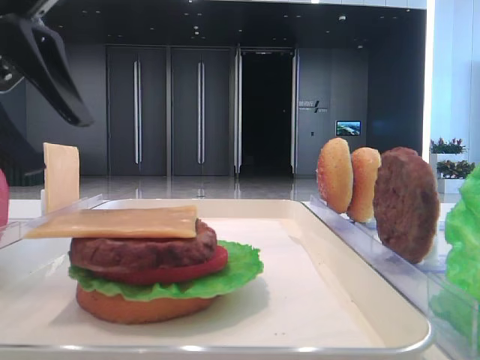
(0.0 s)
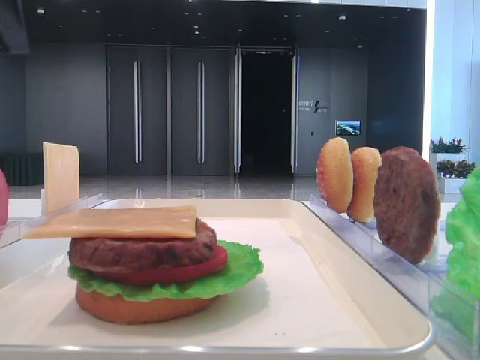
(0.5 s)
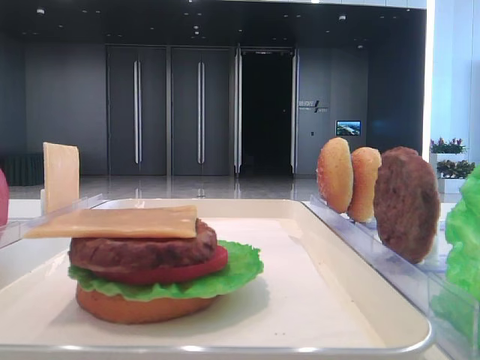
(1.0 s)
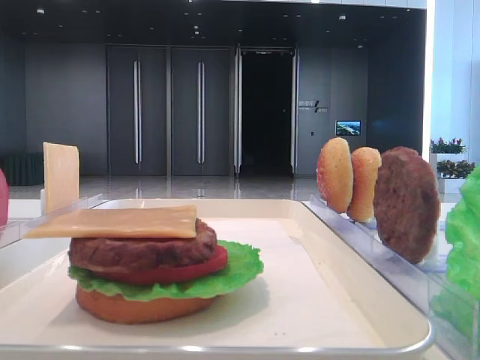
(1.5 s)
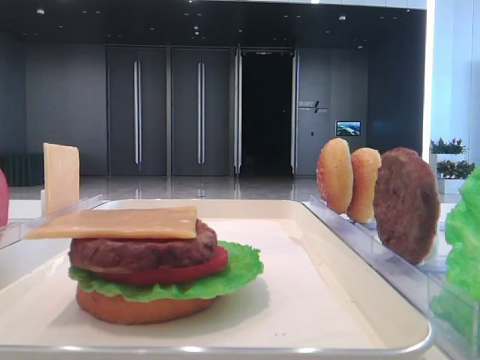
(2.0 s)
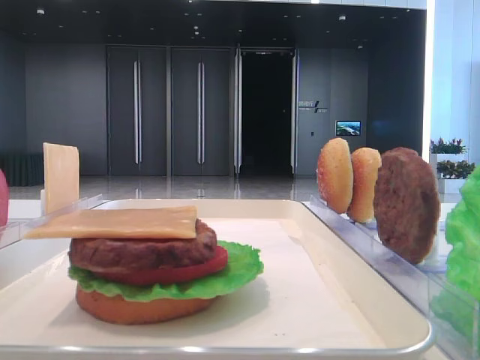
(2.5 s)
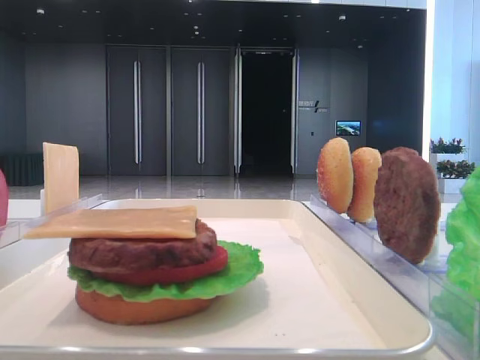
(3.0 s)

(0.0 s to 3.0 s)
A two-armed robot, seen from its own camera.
0.0 s - 1.5 s: The left gripper travels to the left and upward by about 15 cm.

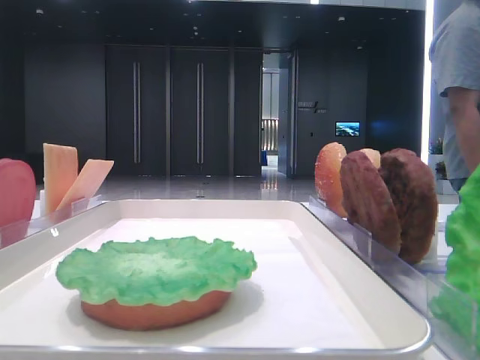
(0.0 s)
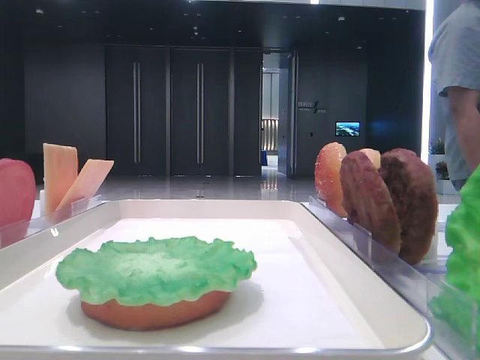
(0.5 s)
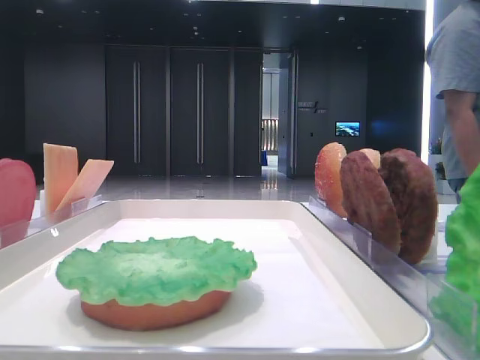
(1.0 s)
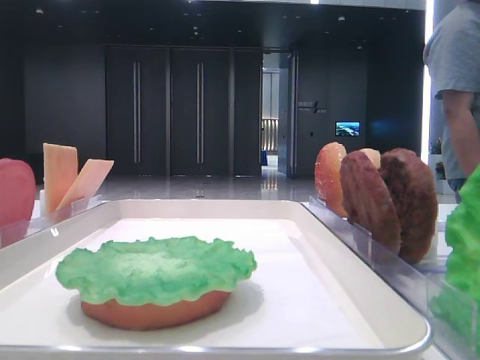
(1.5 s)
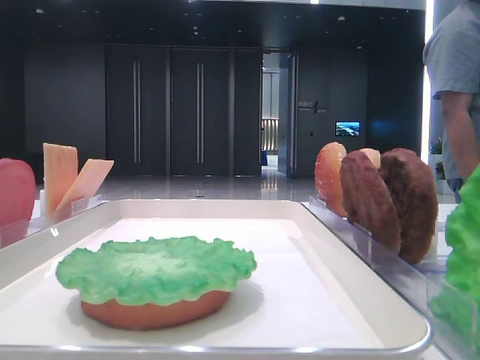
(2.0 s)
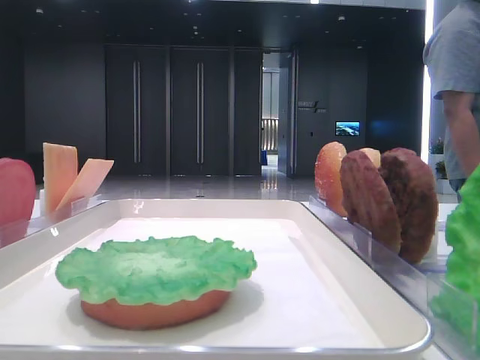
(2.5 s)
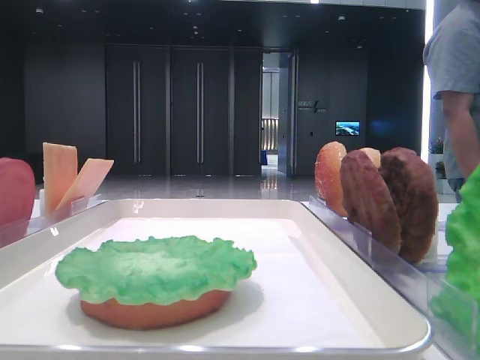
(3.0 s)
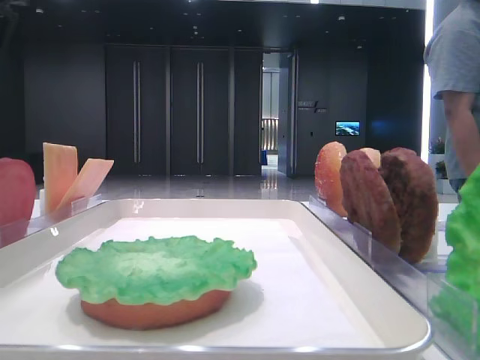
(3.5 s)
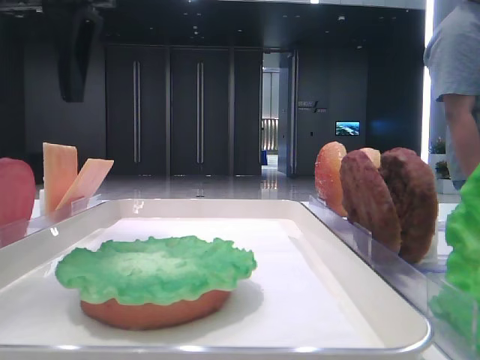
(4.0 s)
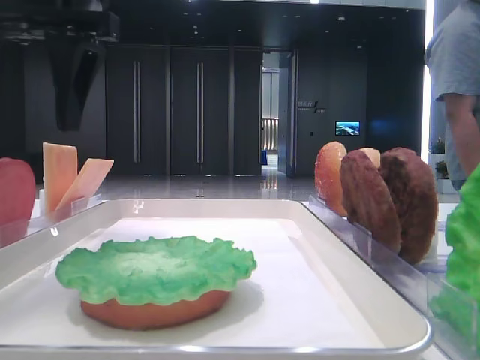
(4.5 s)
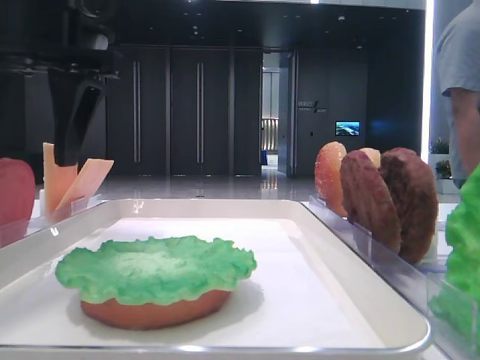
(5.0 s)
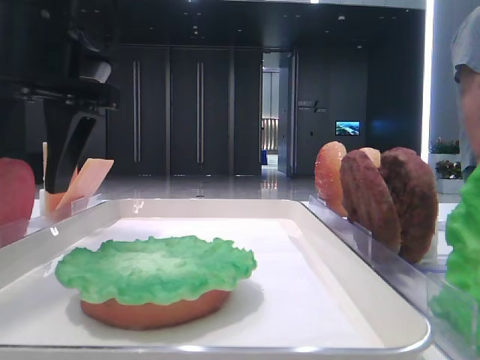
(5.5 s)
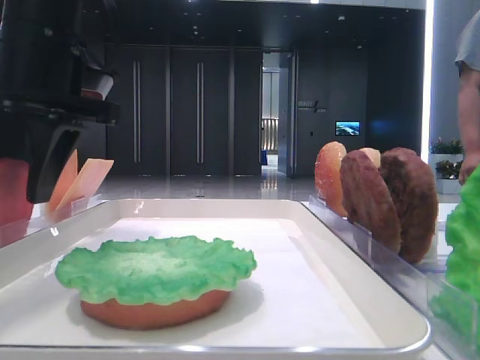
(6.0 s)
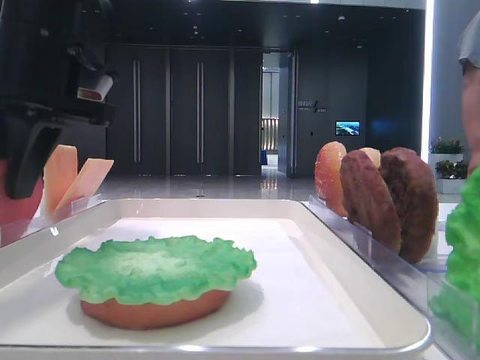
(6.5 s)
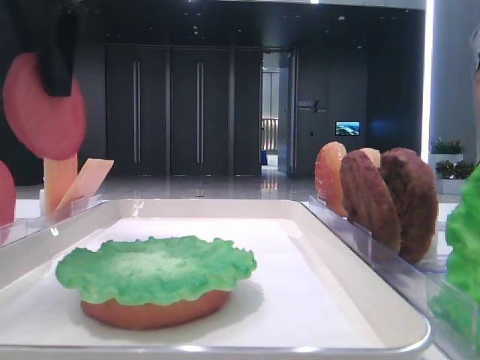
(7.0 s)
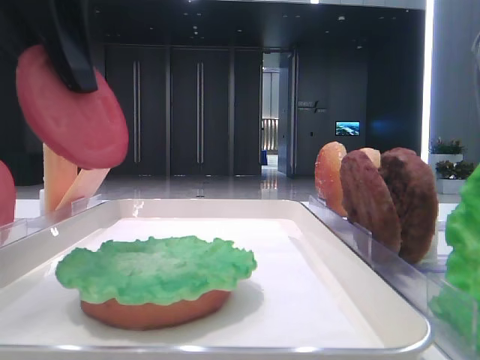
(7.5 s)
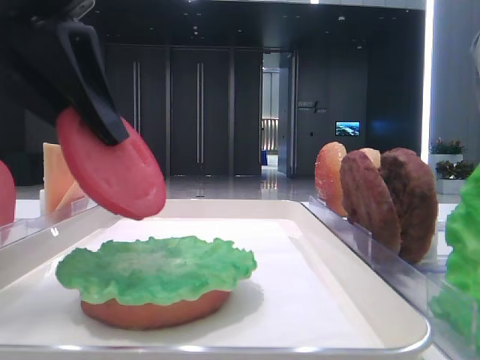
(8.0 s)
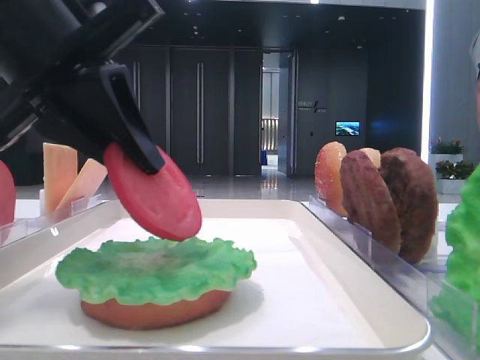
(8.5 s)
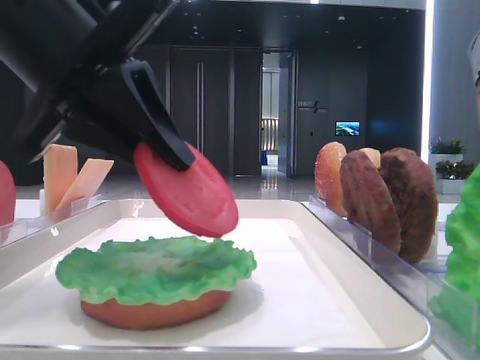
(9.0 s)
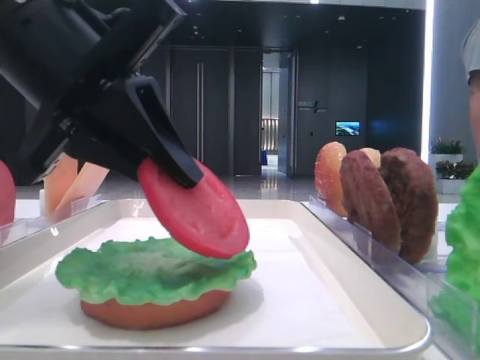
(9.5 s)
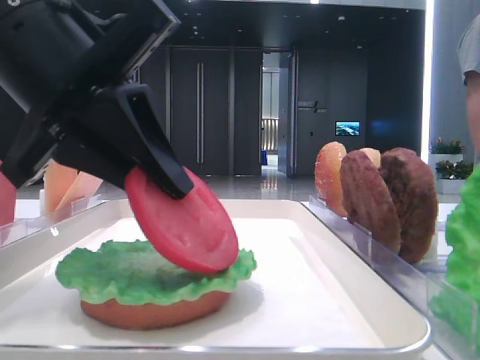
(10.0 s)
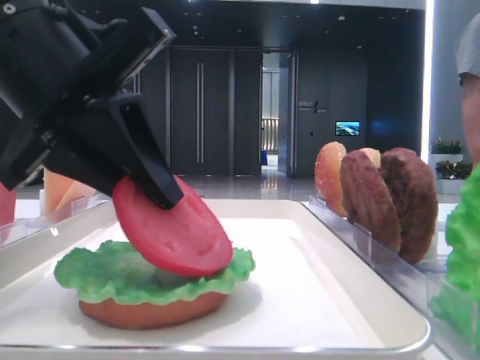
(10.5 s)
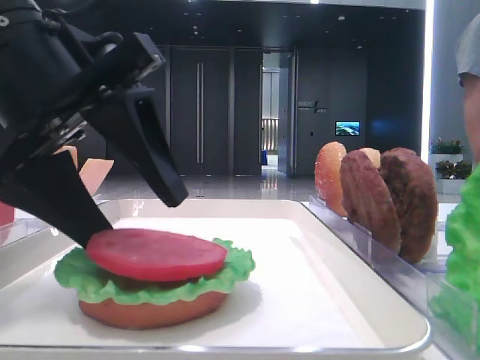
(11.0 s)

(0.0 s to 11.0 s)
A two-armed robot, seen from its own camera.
Step, 0.0 s - 6.0 s: Pick up the tomato slice with the left hand.
Step, 6.5 s - 11.0 s: Place the tomato slice on the lettuce leaf with the left hand.
3.5 s - 5.5 s: The left gripper goes some 10 cm to the right and downward.
5.5 s - 7.5 s: The left gripper moves backward and upward, approximately 10 cm, and closes.
7.5 s - 9.0 s: The left gripper shifts approximately 10 cm downward.
9.0 s - 11.0 s: The left gripper opens.

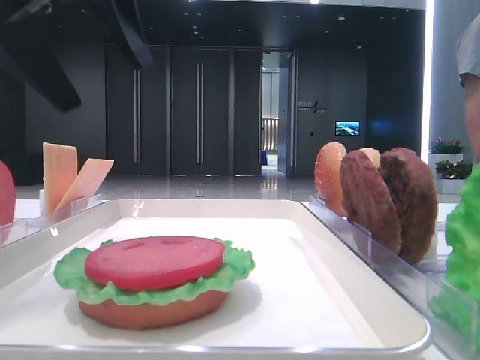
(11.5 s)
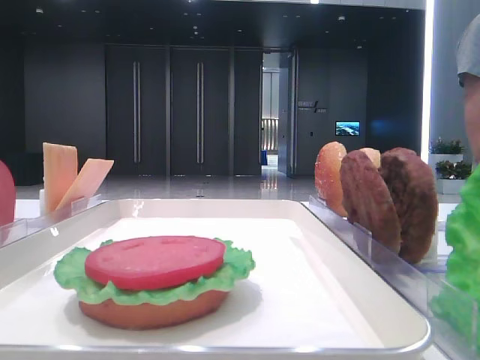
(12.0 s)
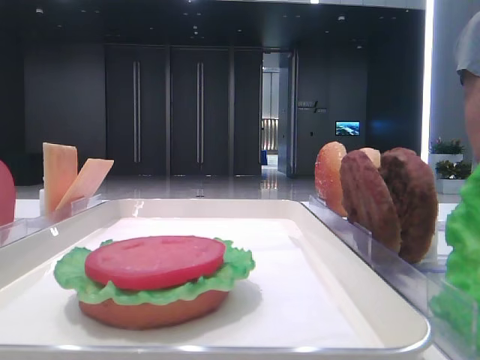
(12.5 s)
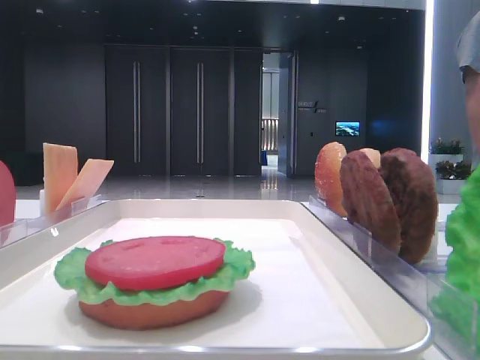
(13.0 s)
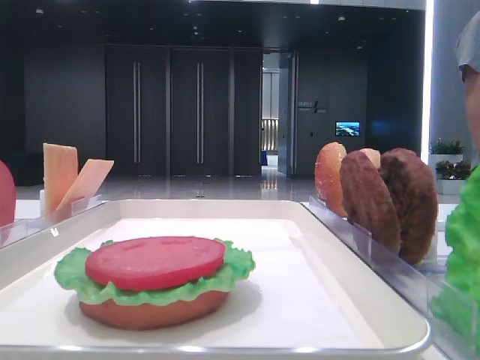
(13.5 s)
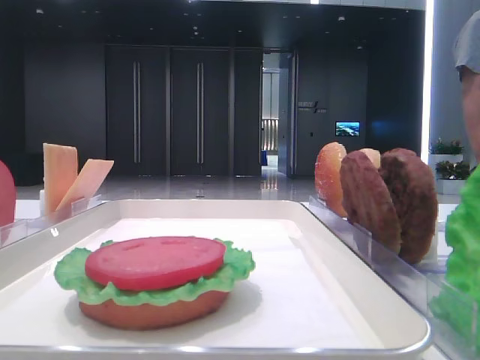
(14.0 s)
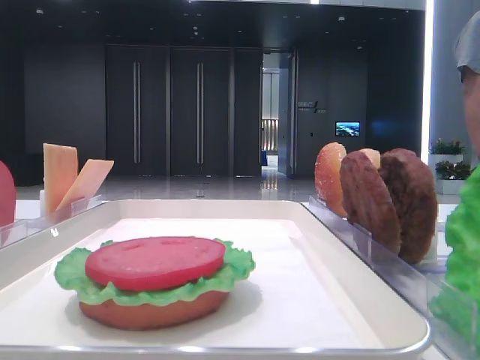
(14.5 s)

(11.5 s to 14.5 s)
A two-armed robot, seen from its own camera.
11.5 s - 13.0 s: The left gripper is displaced to the left and backward by approximately 20 cm.

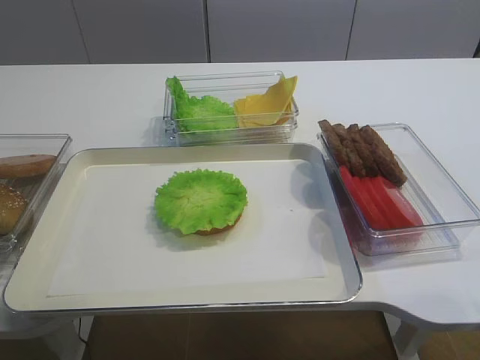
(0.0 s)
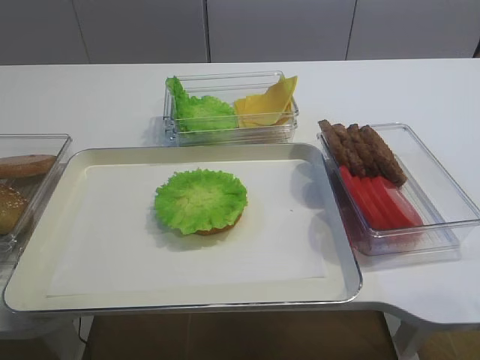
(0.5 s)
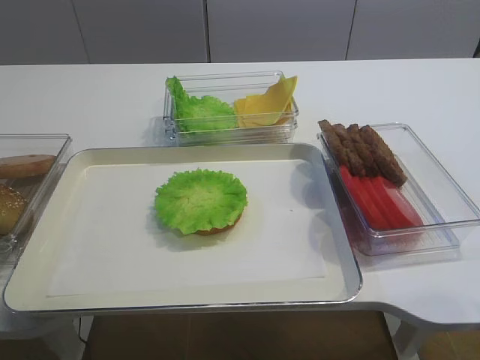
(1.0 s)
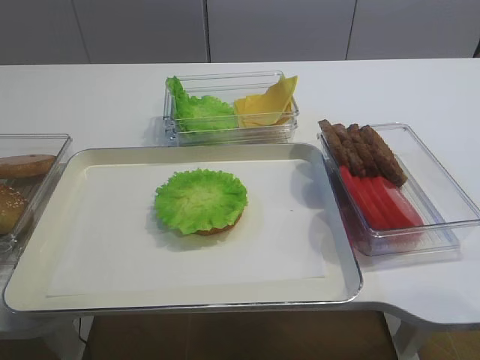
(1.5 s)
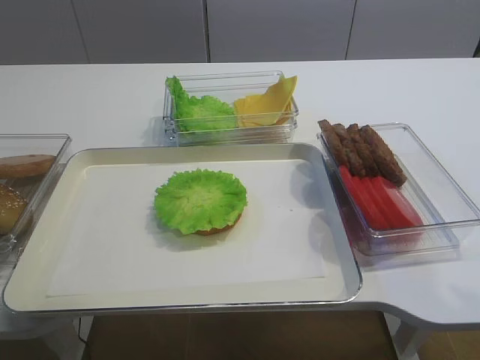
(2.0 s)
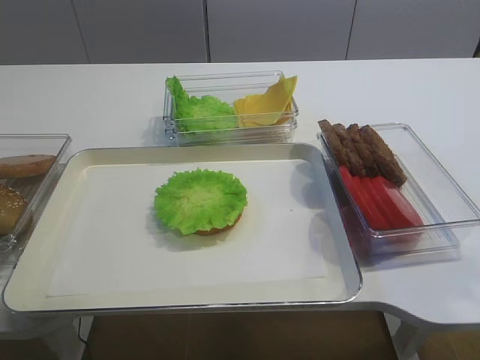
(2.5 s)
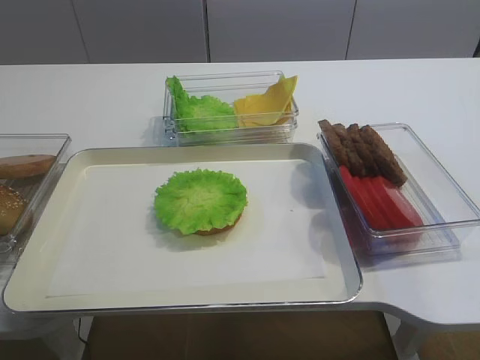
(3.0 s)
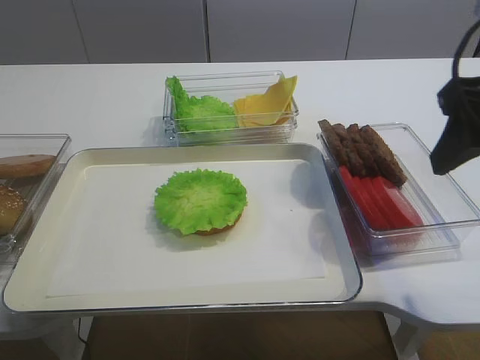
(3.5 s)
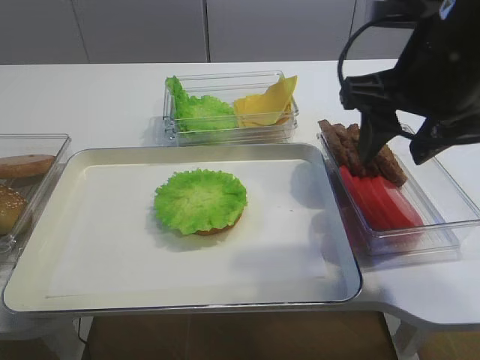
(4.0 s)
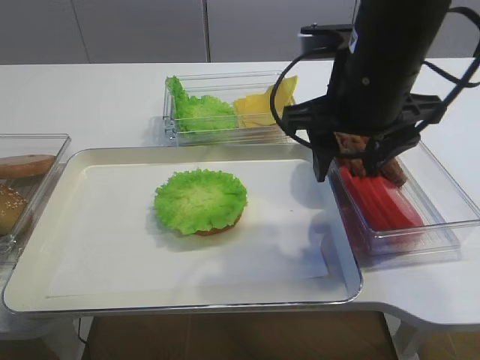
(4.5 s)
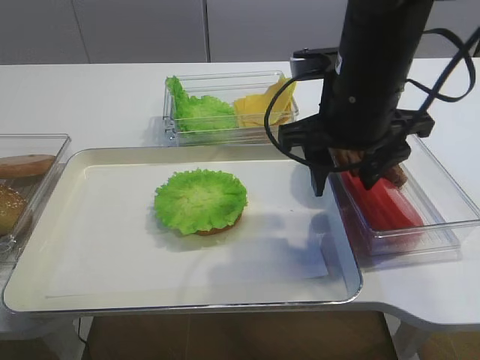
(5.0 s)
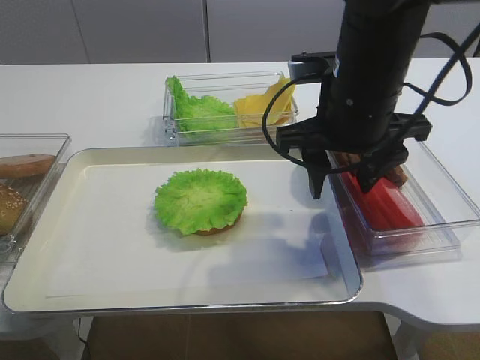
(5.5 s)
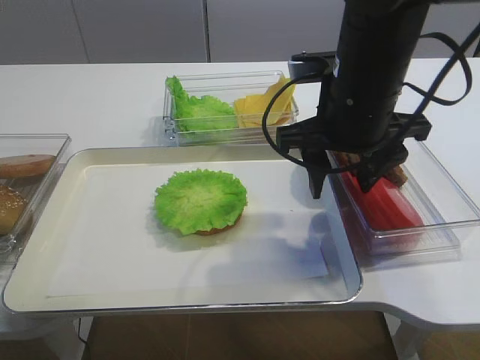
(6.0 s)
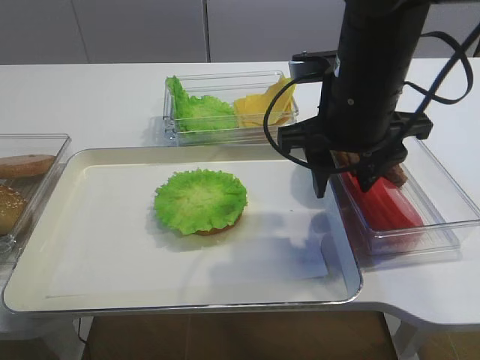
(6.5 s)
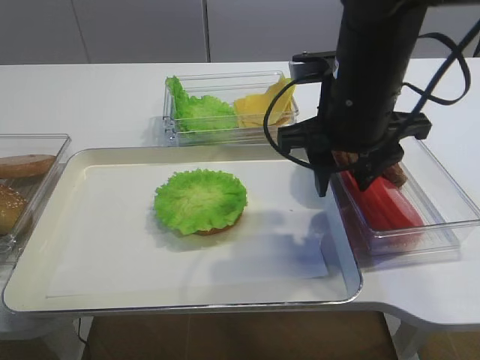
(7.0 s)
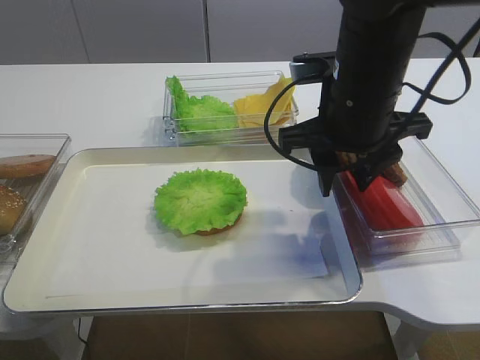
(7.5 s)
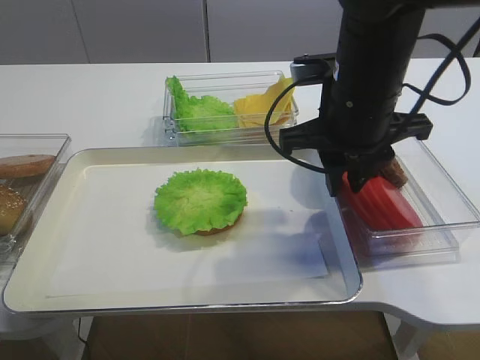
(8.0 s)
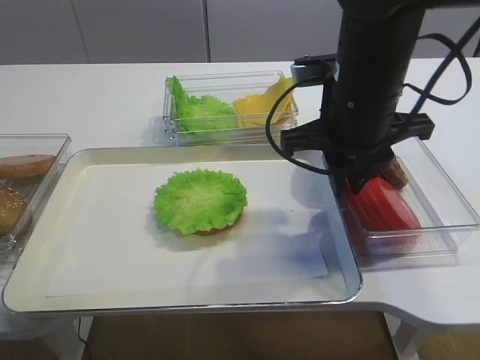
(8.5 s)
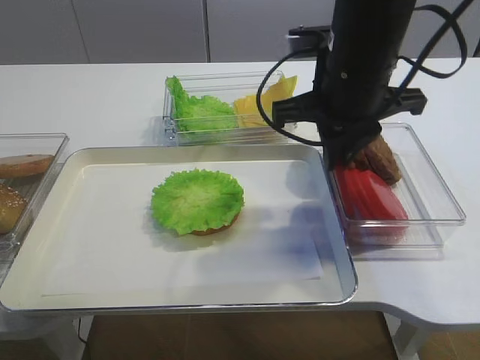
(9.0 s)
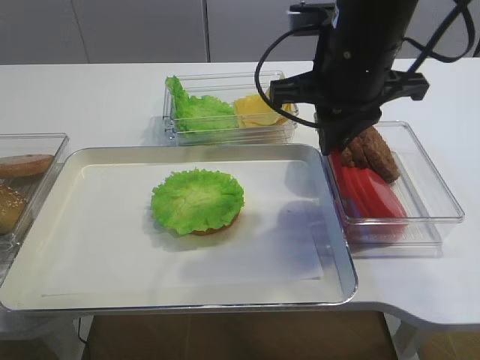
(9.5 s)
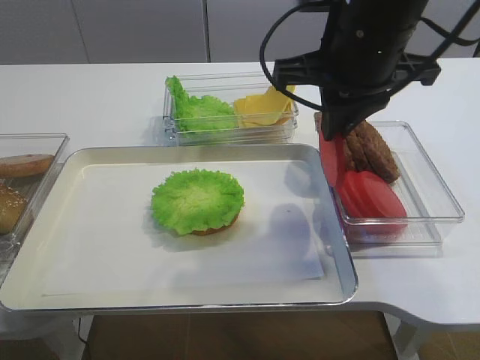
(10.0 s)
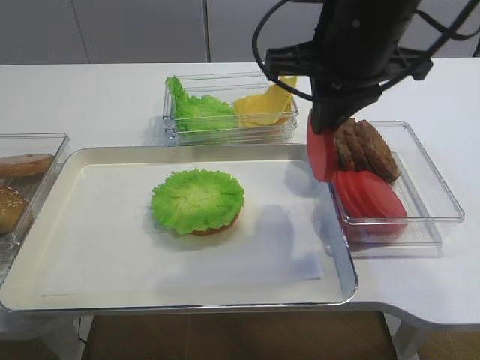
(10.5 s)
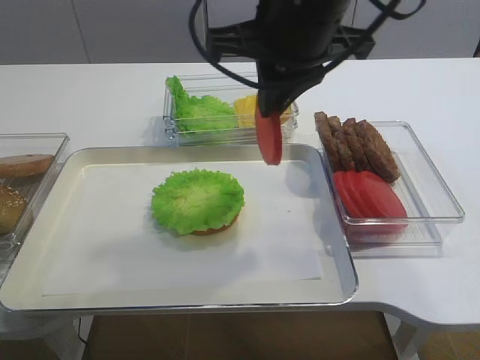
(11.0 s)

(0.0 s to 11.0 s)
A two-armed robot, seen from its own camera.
Step, 0.0 s - 9.5 s: Pick up the tomato slice with the right gripper.
2.0 s - 3.5 s: The right gripper goes roughly 20 cm forward.
3.5 s - 5.5 s: The right gripper travels to the left, forward and downward by about 15 cm; the left gripper closes up.
5.5 s - 7.5 s: Both grippers stay about where they are.
7.5 s - 9.0 s: The right gripper closes its fingers.
9.0 s - 11.0 s: The right gripper shifts some 5 cm upward.
